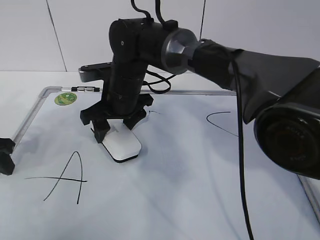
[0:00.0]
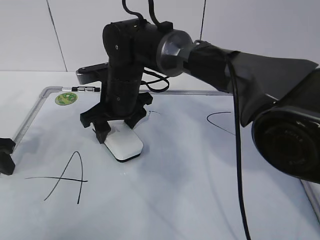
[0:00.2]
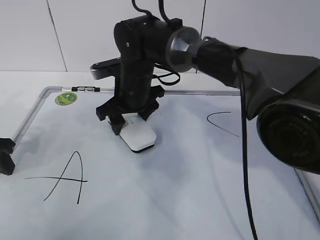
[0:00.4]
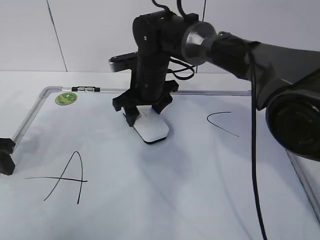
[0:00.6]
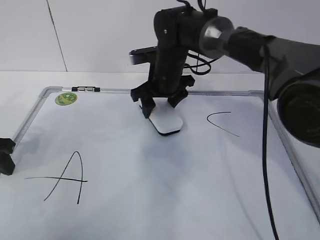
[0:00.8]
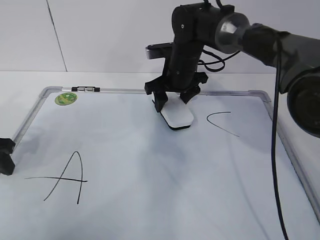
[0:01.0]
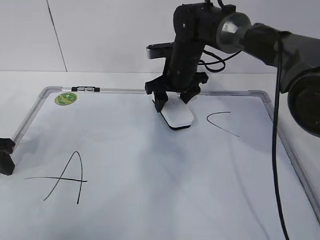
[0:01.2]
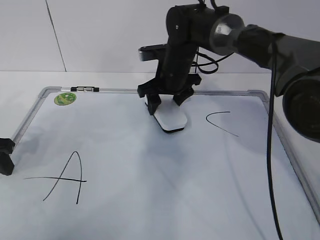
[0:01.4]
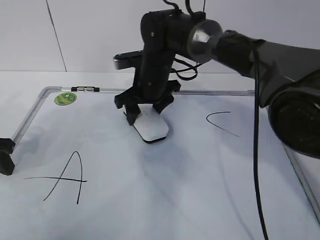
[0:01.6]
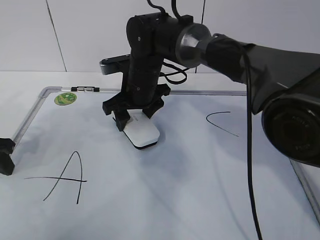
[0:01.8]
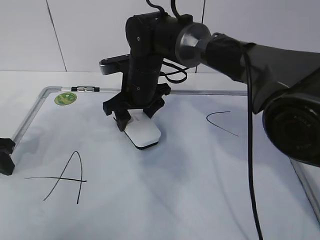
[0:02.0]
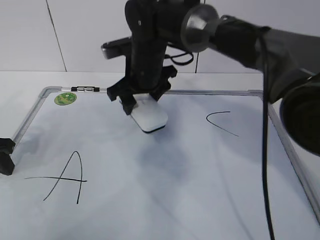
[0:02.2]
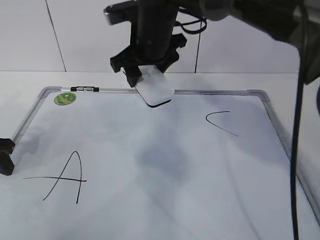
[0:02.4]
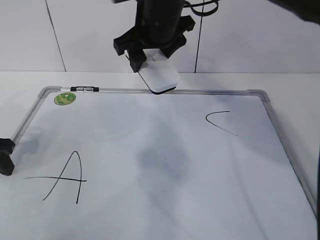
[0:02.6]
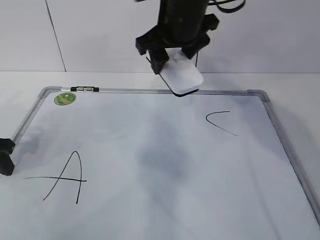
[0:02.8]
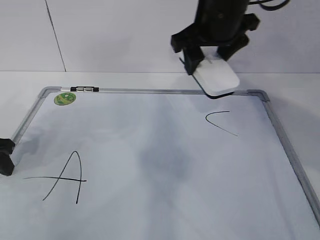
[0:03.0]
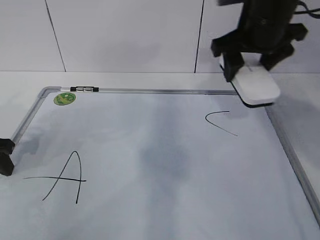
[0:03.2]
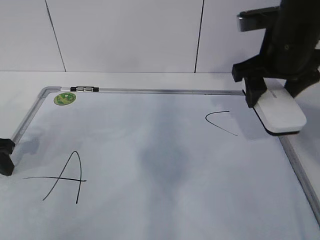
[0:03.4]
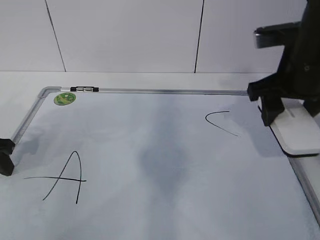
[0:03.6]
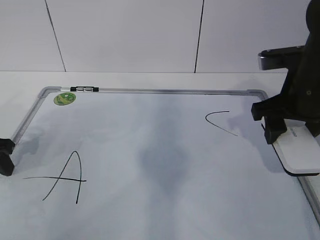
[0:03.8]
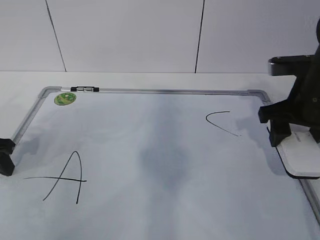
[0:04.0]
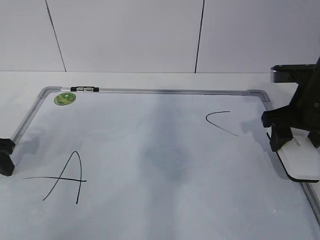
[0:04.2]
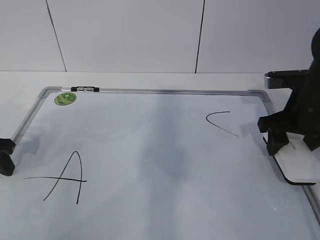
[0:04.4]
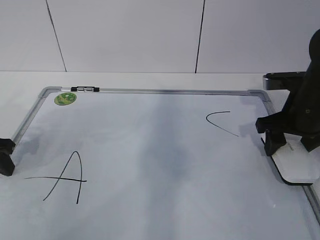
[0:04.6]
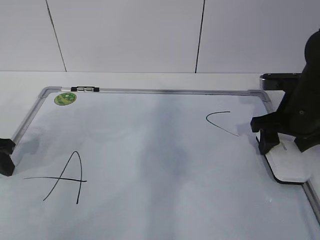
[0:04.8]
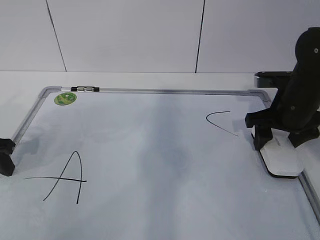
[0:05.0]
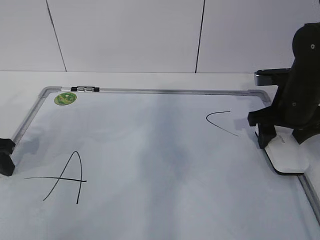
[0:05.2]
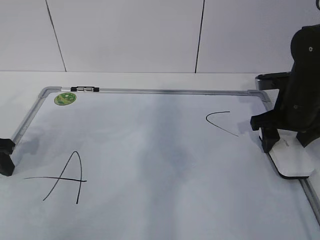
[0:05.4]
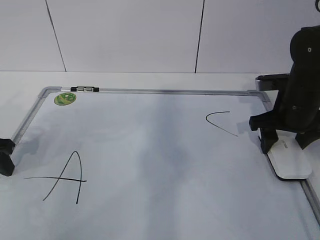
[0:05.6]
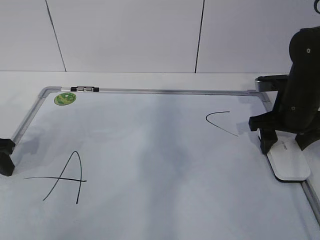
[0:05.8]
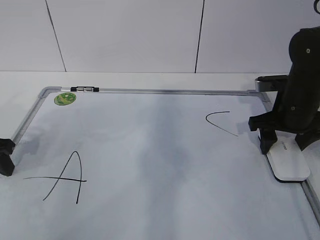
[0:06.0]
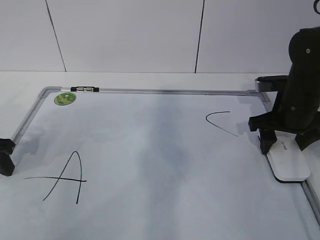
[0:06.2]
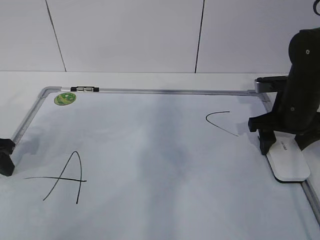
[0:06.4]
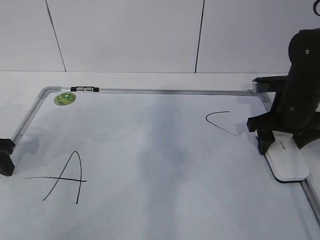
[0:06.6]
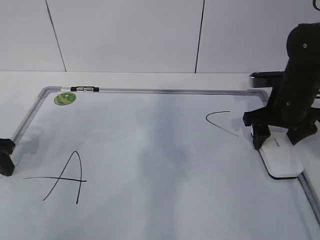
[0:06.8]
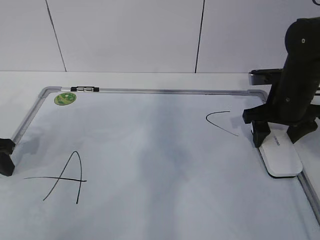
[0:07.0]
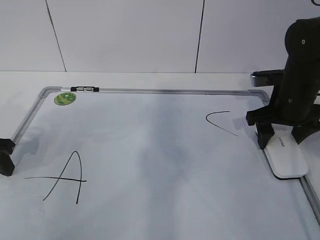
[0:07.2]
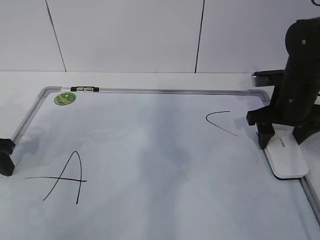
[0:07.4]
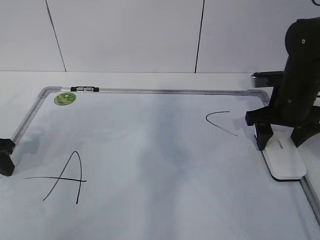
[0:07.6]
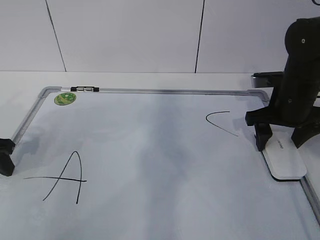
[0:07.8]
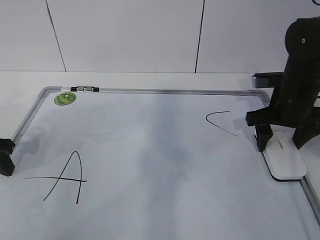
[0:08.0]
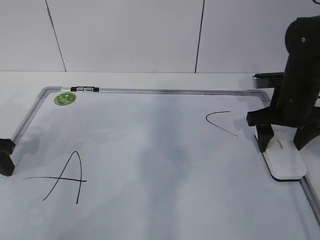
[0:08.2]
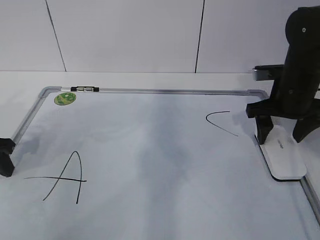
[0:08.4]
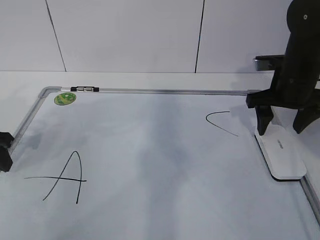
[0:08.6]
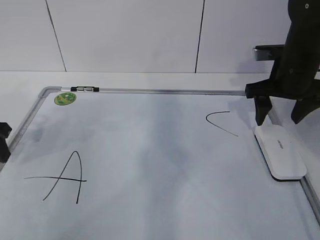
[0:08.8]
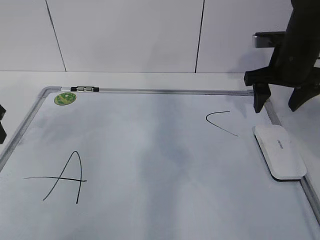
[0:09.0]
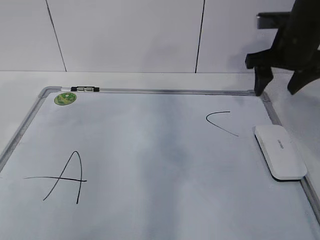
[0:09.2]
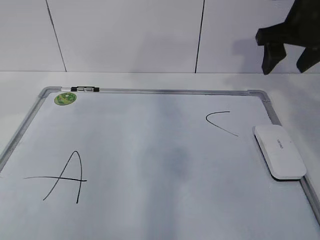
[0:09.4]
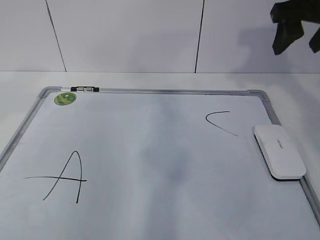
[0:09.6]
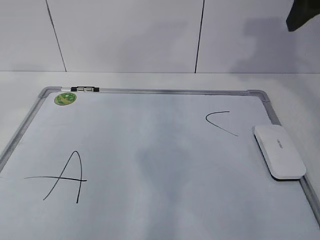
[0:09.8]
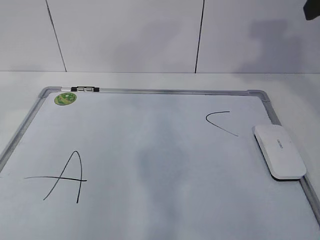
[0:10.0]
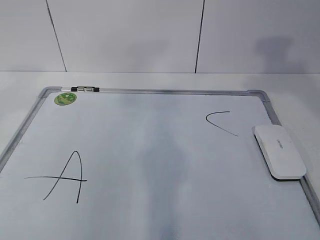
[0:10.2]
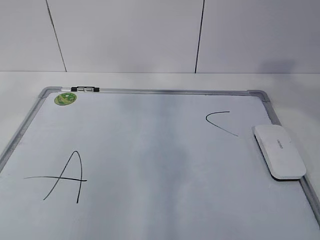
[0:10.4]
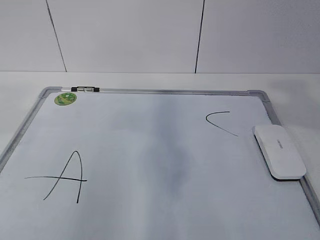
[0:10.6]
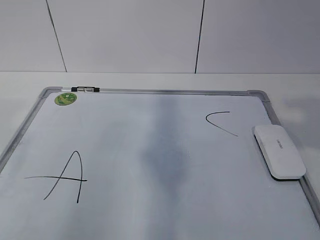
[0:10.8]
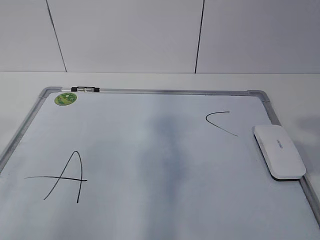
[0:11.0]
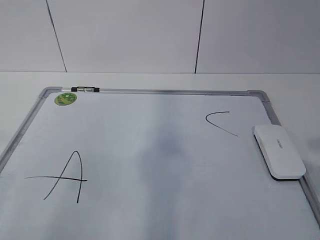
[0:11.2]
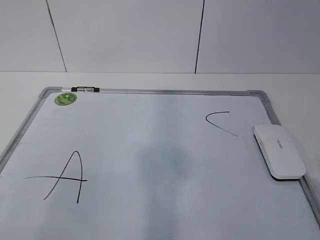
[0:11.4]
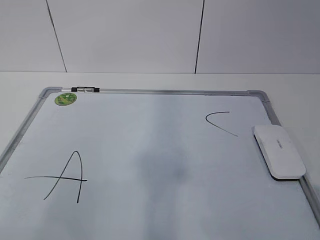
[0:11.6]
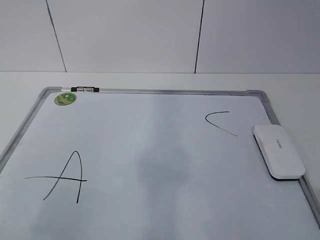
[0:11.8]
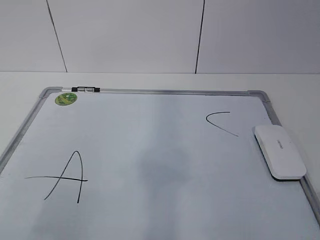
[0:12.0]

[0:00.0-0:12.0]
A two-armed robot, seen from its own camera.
Task of the whole recording: pick up the eraser on the blackboard and erase the letter "B".
Step, 0:00.0 to 0:03.6: Put down the eraser with your right hand.
0:00.0 to 0:01.6: The right gripper heads to the right, covering some 5 cm.
0:01.6 to 0:03.0: The right gripper travels upward, to the right and backward by approximately 20 cm.
0:03.0 to 0:04.4: The right gripper shifts roughly 20 cm to the right and downward.
0:04.4 to 0:07.6: There are only small adjustments of the grippers.
0:07.6 to 0:09.0: Both grippers travel together upward, some 5 cm.
0:09.0 to 0:10.4: The right gripper is displaced backward and upward by about 25 cm. The left gripper shifts approximately 20 cm upward and backward, and opens.
0:10.4 to 0:12.0: The left gripper moves backward and downward, about 20 cm.

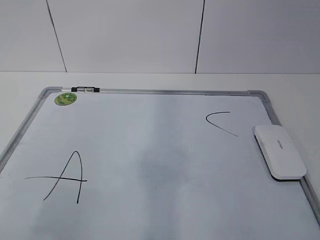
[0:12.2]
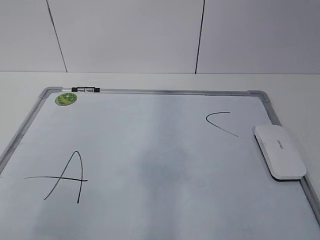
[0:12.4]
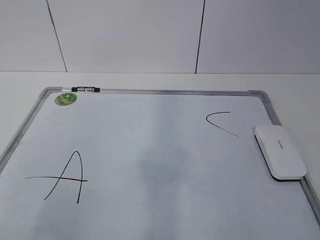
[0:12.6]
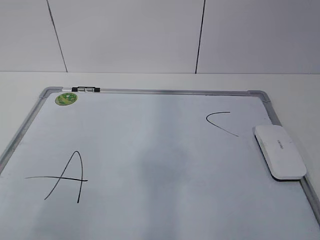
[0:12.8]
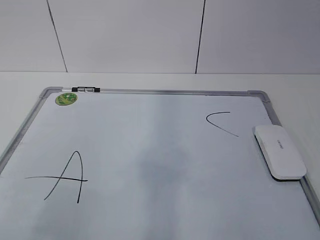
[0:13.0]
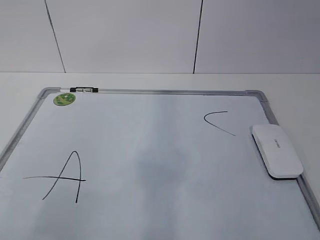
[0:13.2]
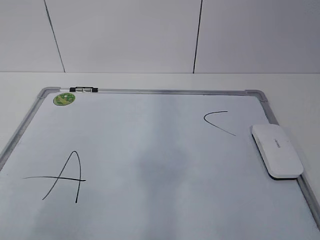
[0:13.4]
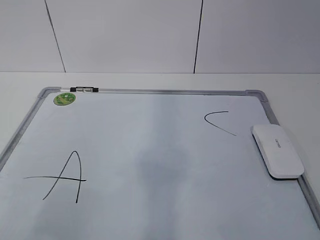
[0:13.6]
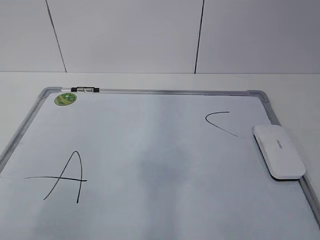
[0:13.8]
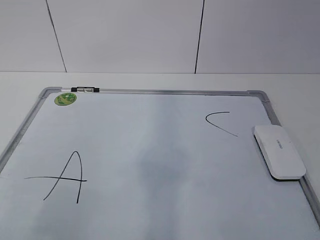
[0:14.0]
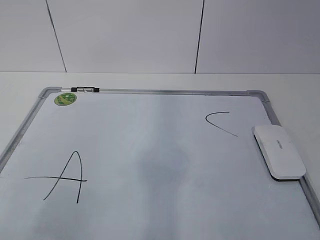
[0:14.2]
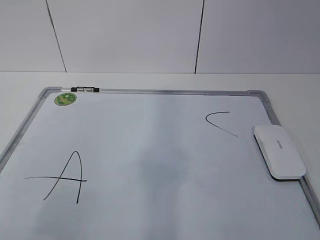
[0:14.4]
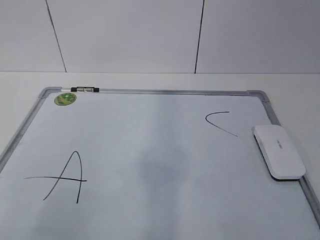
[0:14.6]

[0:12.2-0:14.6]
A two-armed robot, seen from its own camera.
Task of the whole recording: pick up the eraser on the blackboard and erase the letter "B".
0:12.2 to 0:13.4: Both grippers stay put.
0:13.4 to 0:14.6: The grippers make only small movements.
